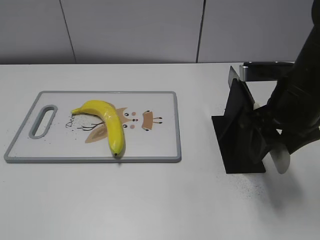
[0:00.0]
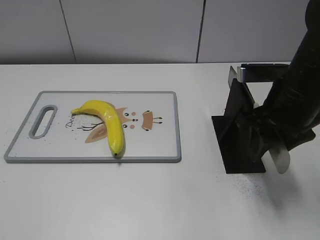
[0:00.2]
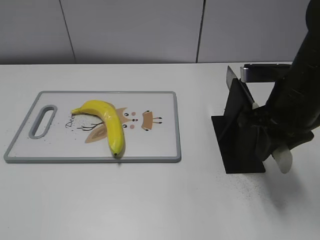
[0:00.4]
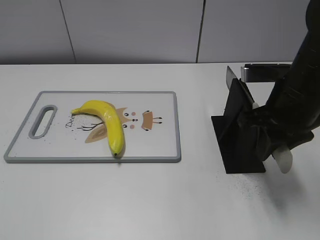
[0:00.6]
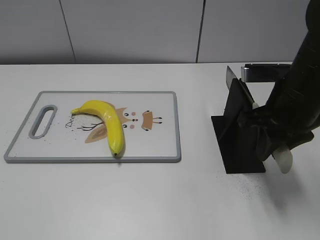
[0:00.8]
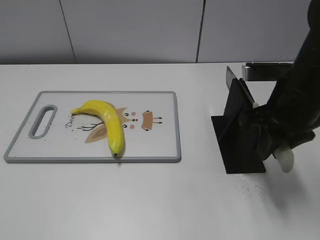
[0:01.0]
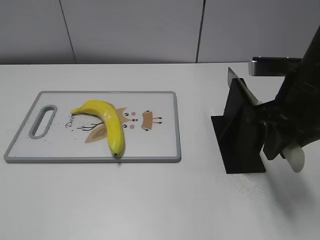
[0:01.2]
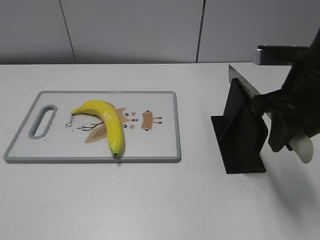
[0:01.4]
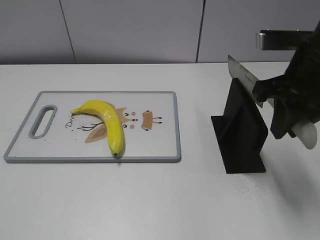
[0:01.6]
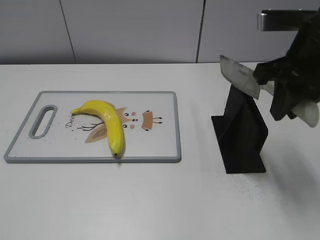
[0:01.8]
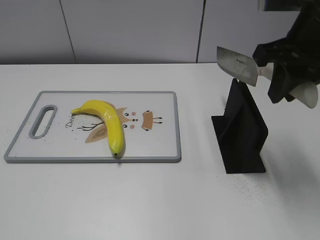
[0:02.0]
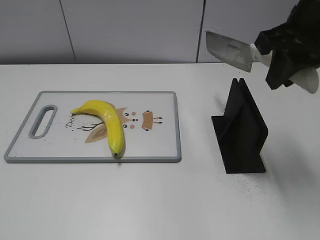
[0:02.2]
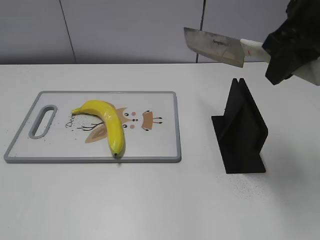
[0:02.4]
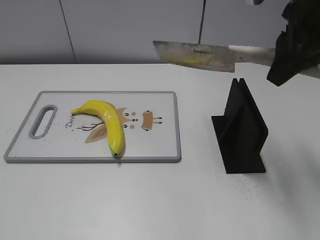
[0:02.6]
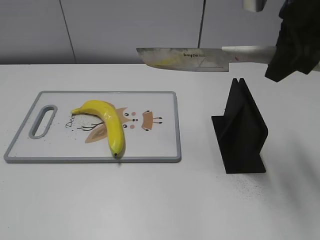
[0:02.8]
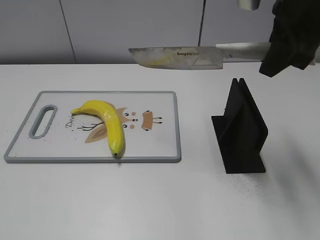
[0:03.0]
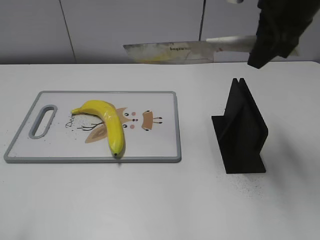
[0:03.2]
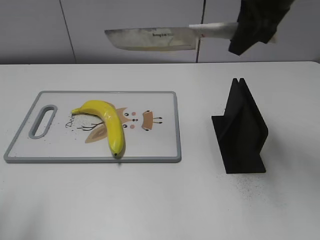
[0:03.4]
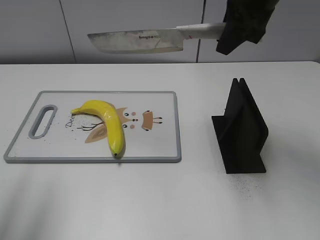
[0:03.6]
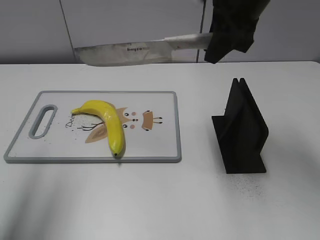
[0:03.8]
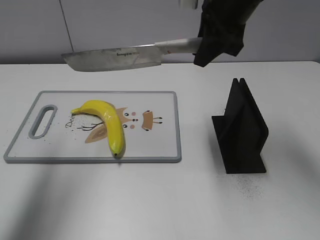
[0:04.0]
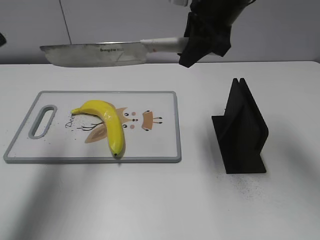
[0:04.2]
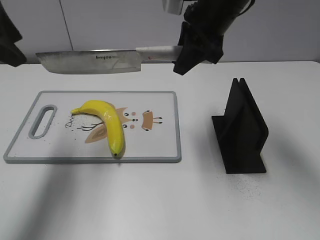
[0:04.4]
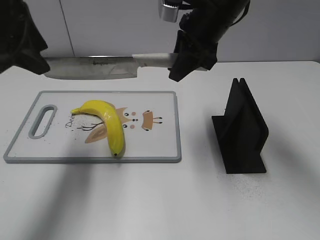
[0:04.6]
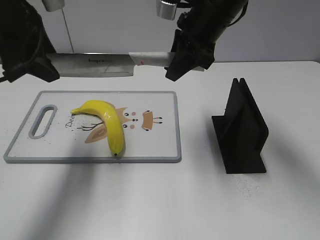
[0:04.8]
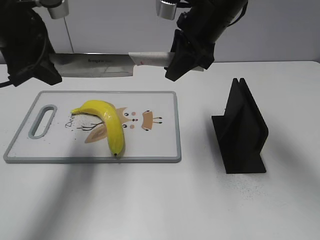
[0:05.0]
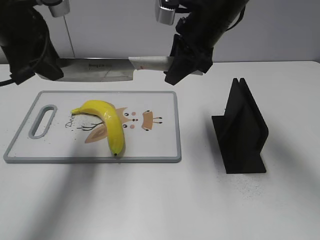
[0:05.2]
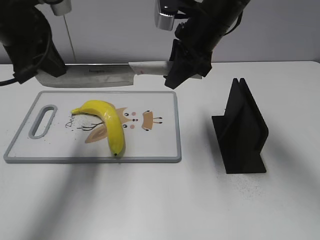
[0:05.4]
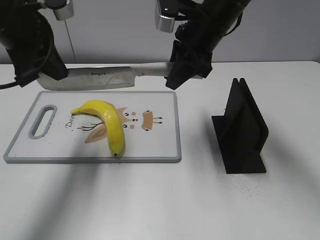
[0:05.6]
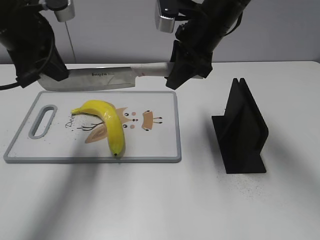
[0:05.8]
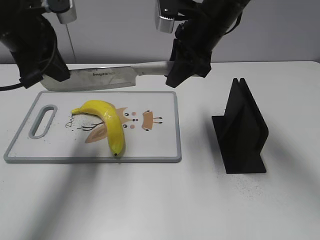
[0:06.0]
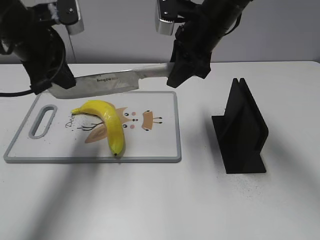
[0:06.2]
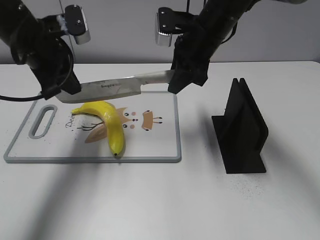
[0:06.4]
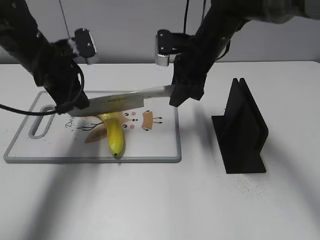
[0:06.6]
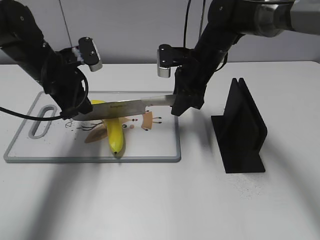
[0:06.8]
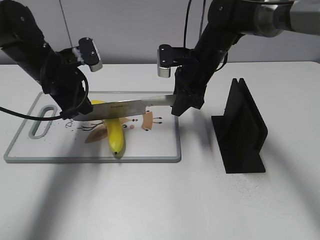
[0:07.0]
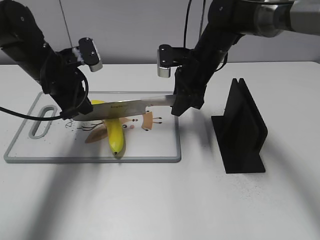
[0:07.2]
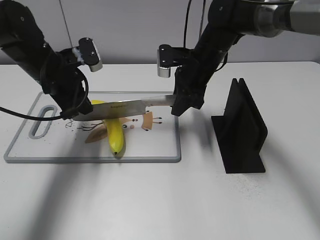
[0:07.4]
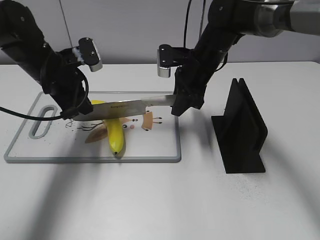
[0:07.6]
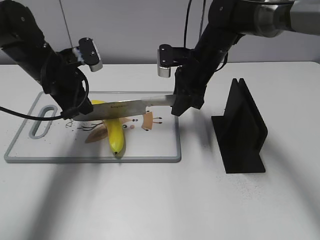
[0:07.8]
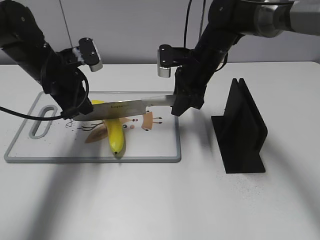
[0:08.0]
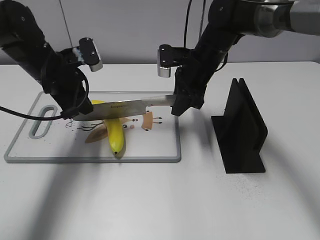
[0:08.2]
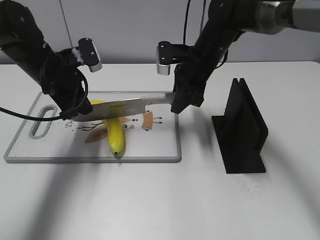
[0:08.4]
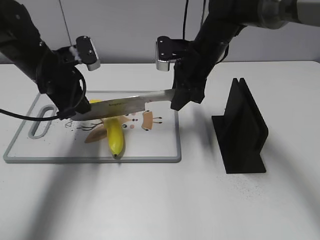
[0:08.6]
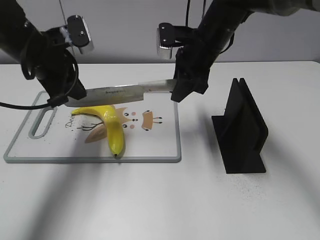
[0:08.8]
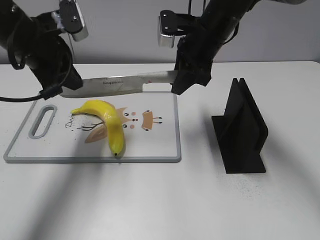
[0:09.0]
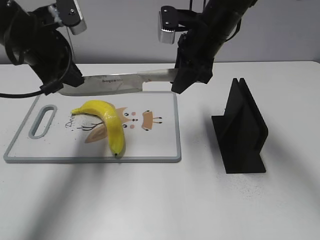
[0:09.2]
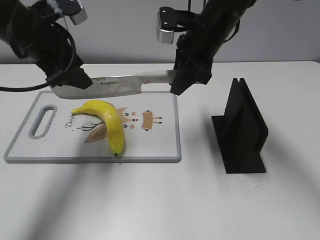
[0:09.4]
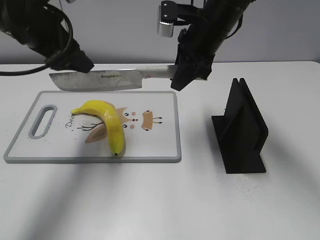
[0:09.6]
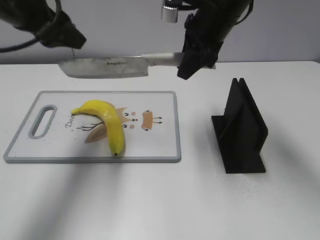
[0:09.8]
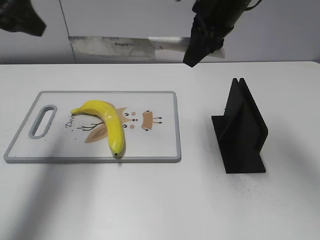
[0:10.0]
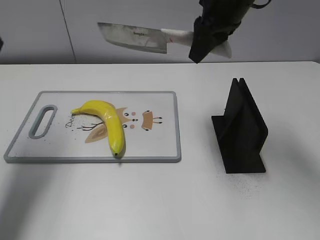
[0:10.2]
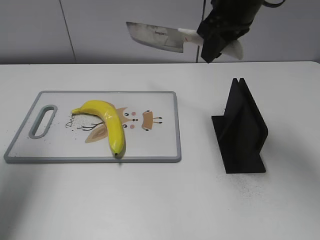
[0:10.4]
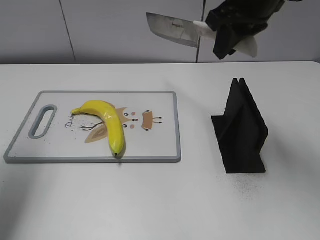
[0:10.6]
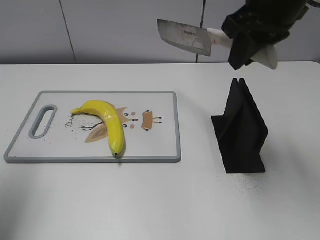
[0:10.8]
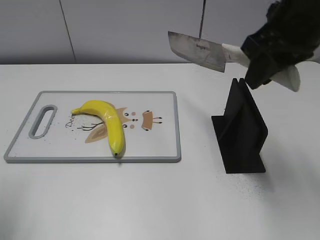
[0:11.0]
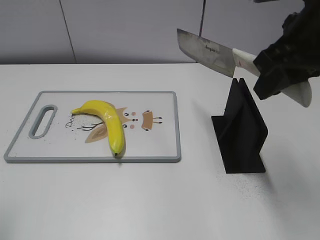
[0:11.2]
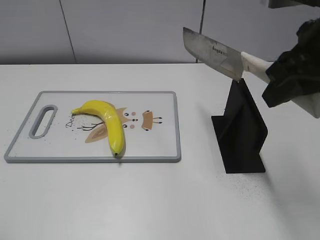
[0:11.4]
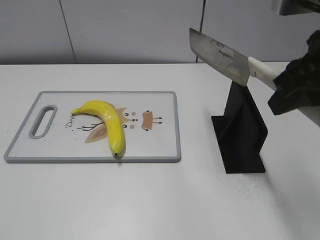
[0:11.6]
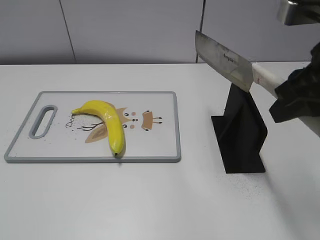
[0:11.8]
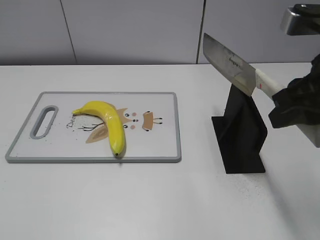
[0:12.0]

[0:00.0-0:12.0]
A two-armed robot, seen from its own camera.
Task of the whole recording: cut plastic banana.
Step, 0:01.8 to 0:07.8: Lift the knife with your right hand.
Step, 0:08.0 to 0:10.6: Cut the banana with your right hand.
0:00.0 to 0:01.6: The right gripper goes about 5 cm upward, and closes.
0:01.6 to 0:03.0: The left gripper moves about 5 cm. Meanwhile the right gripper travels upward by about 5 cm.
0:03.0 to 0:04.4: The left gripper goes approximately 25 cm forward; the right gripper travels to the left, forward and downward by roughly 15 cm.
0:04.4 to 0:06.0: The left gripper is displaced downward by approximately 5 cm, and closes its fingers.
0:06.0 to 0:07.6: Both grippers move downward, about 10 cm.
0:07.6 to 0:09.0: The two grippers go about 10 cm upward.
0:09.0 to 0:10.4: The right gripper is displaced upward by about 10 cm. Meanwhile the left gripper is displaced to the left, upward and backward by approximately 15 cm, and opens its fingers.
0:10.4 to 0:12.0: The left gripper is displaced backward by about 30 cm; the right gripper travels backward and to the right by roughly 20 cm.

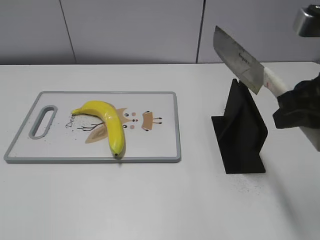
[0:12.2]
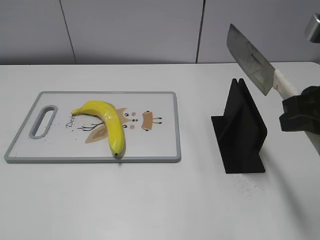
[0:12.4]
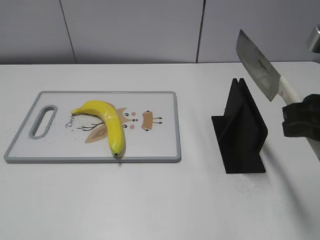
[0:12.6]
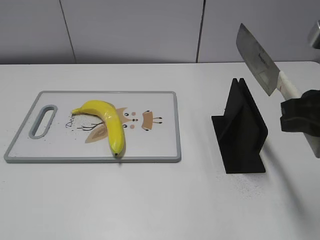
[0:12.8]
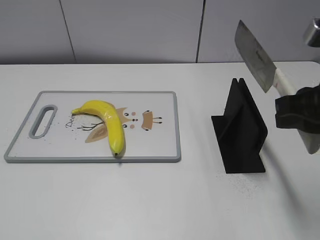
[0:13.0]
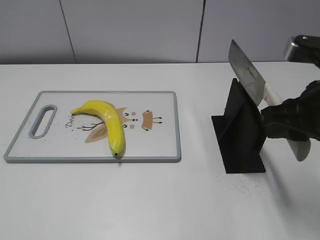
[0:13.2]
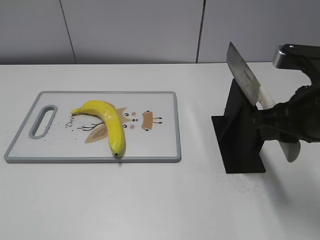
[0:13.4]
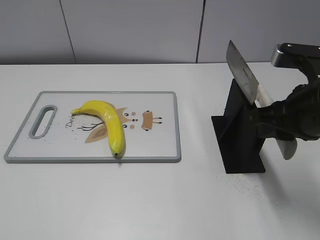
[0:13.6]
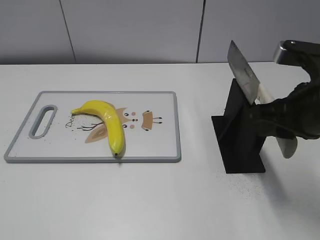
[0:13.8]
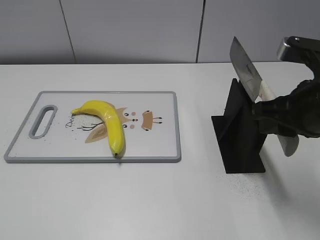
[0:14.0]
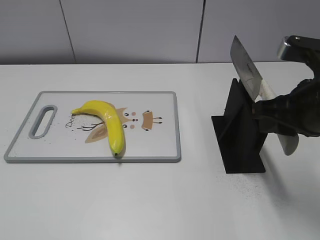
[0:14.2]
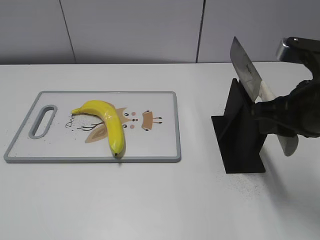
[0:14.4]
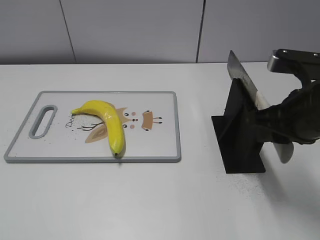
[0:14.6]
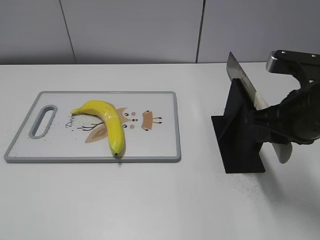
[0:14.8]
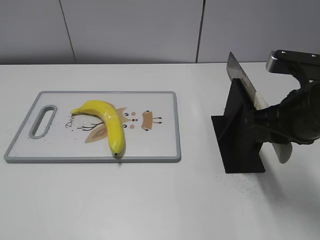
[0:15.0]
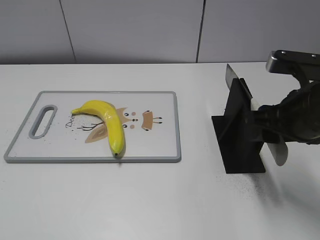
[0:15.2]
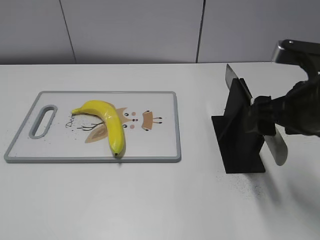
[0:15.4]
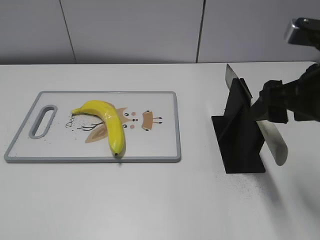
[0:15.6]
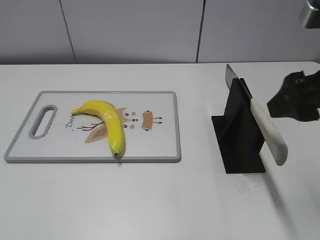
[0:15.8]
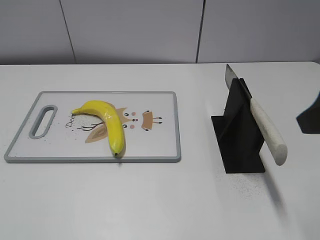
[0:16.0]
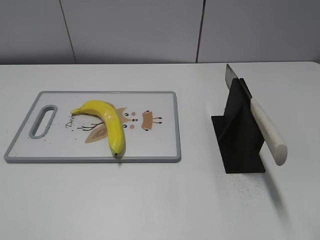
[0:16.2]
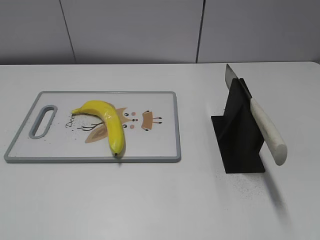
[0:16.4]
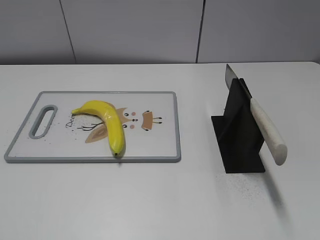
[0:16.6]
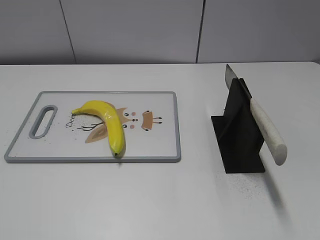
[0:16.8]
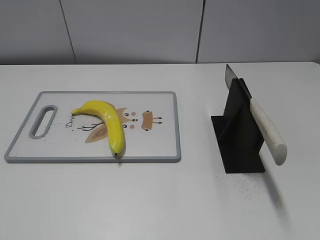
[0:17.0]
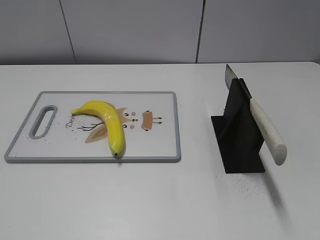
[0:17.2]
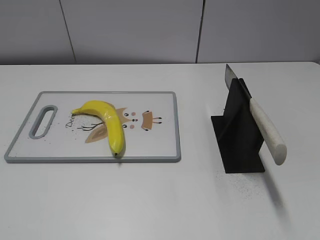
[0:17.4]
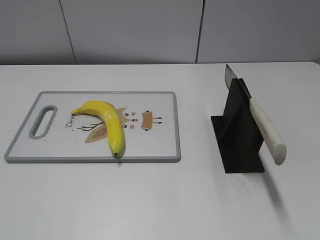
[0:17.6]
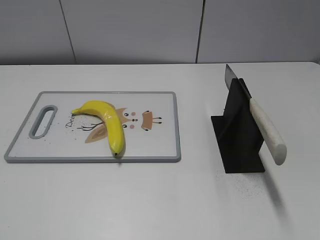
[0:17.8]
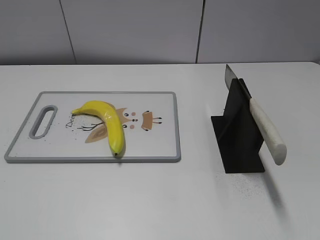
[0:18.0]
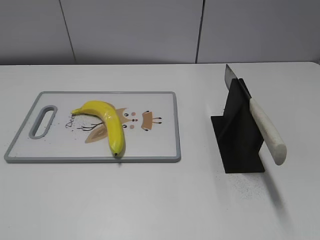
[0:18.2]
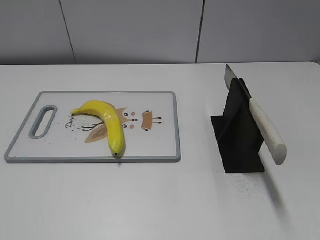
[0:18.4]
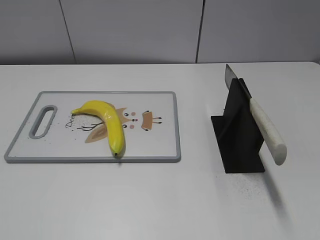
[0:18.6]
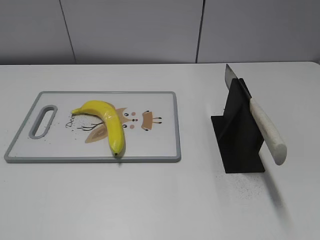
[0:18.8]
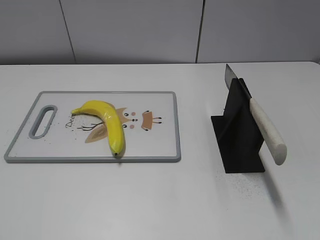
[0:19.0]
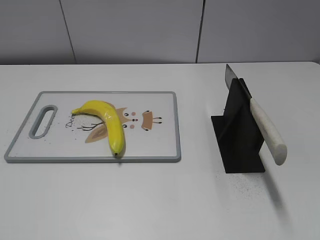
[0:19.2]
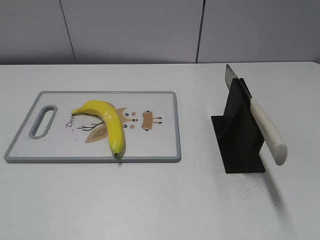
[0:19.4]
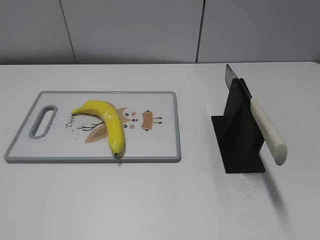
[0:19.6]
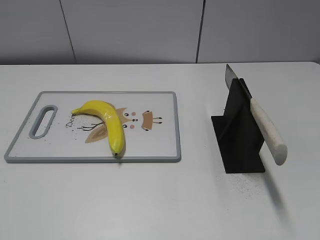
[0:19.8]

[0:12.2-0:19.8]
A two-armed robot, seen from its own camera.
Task of the whole recording: cut plastic banana.
Step, 0:12.4 to 0:19.8: Place the knife on the storage rack with your right hand.
0:12.2 to 0:13.8: The right gripper is displaced downward by about 5 cm.
0:13.8 to 0:15.2: The right gripper opens.
0:15.2 to 0:16.8: The right gripper heads backward and to the right, covering some 20 cm.
